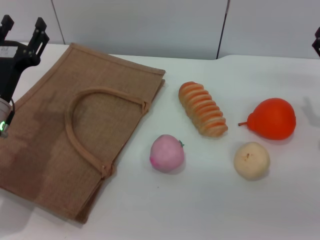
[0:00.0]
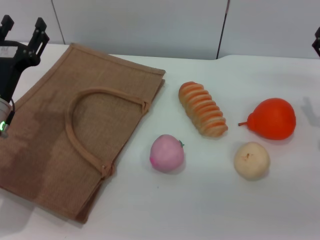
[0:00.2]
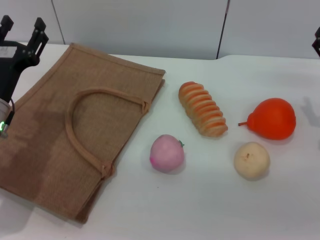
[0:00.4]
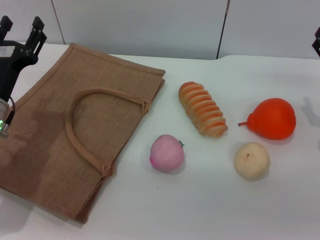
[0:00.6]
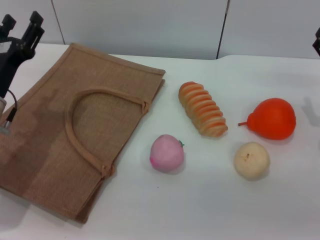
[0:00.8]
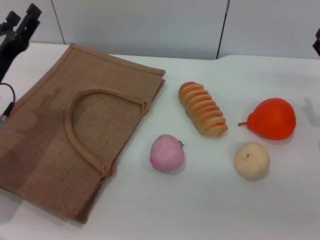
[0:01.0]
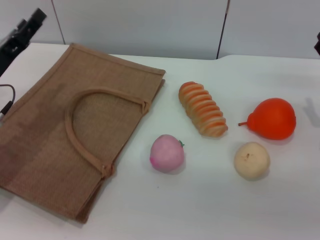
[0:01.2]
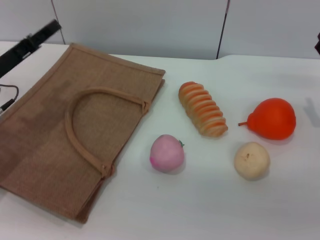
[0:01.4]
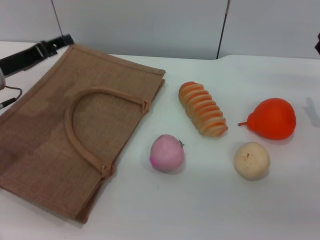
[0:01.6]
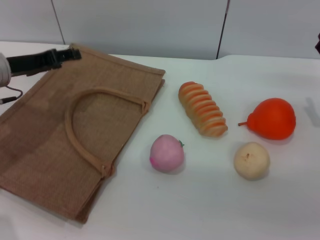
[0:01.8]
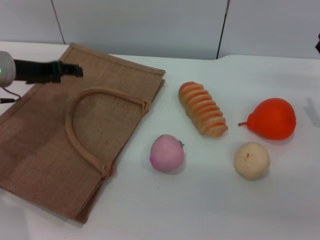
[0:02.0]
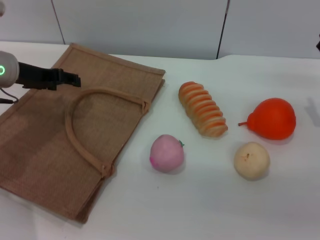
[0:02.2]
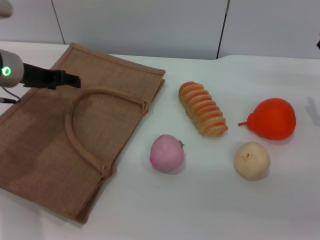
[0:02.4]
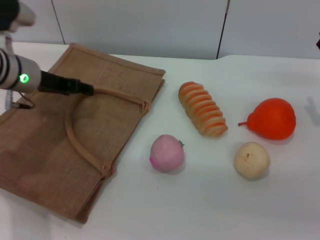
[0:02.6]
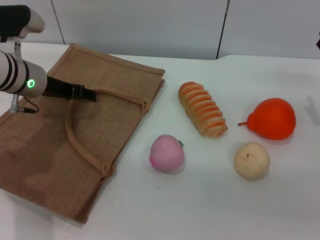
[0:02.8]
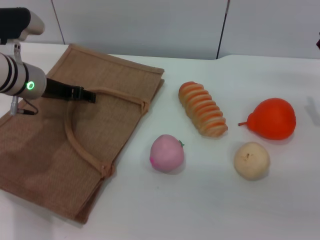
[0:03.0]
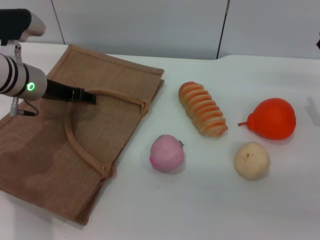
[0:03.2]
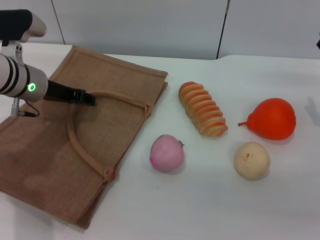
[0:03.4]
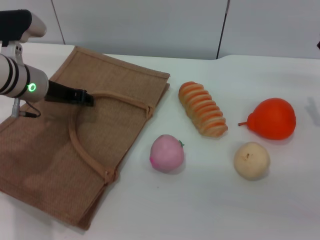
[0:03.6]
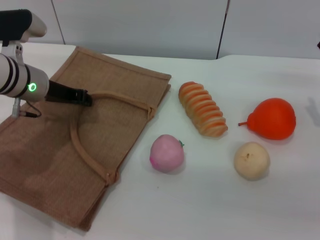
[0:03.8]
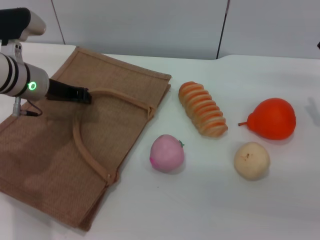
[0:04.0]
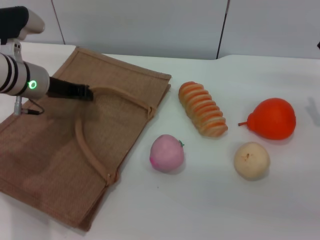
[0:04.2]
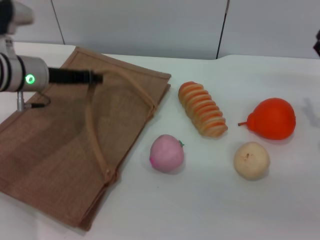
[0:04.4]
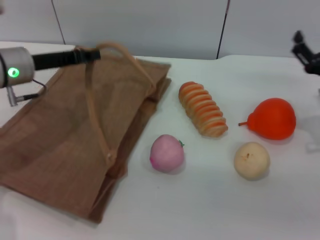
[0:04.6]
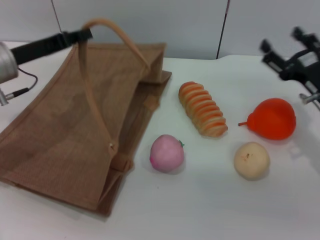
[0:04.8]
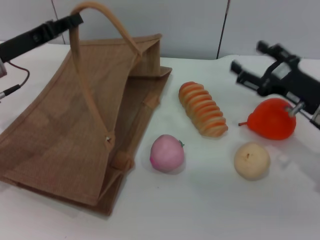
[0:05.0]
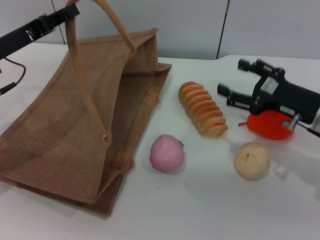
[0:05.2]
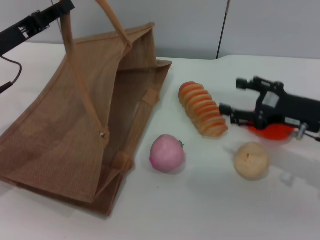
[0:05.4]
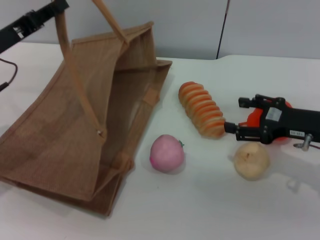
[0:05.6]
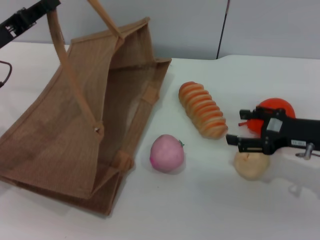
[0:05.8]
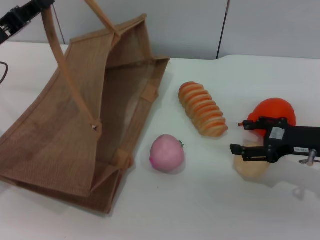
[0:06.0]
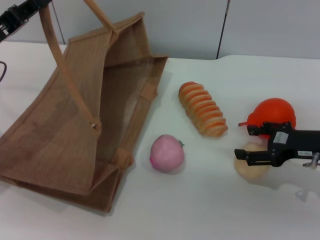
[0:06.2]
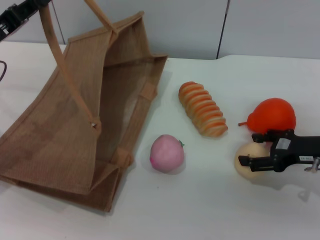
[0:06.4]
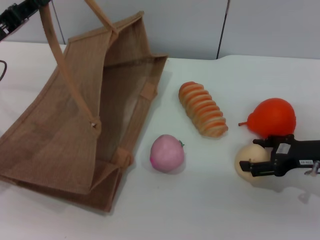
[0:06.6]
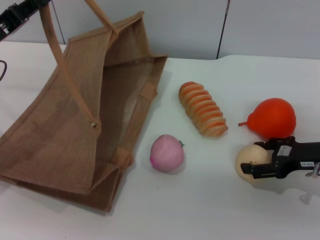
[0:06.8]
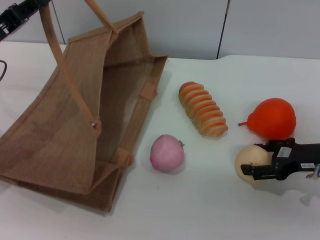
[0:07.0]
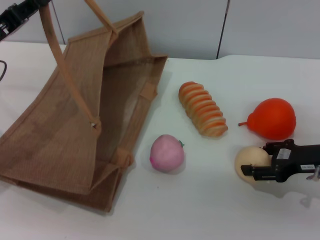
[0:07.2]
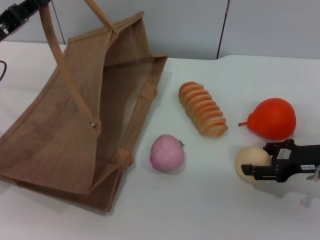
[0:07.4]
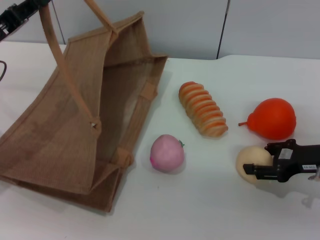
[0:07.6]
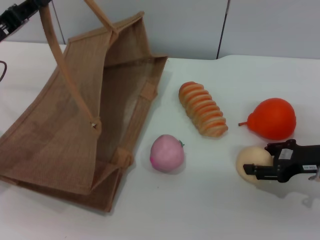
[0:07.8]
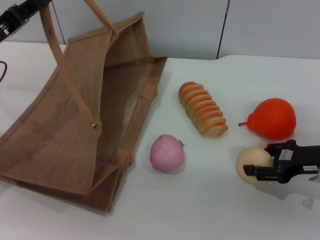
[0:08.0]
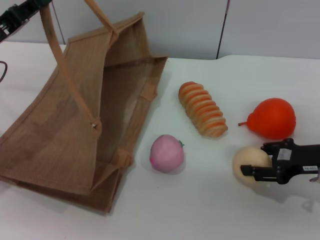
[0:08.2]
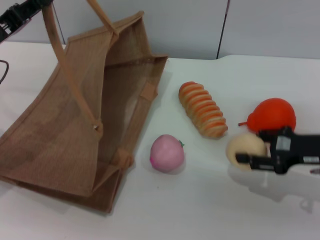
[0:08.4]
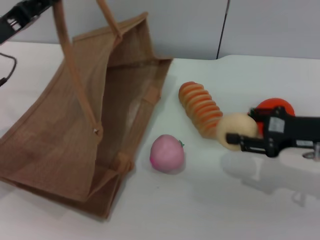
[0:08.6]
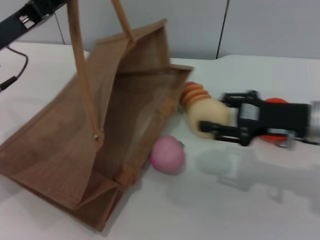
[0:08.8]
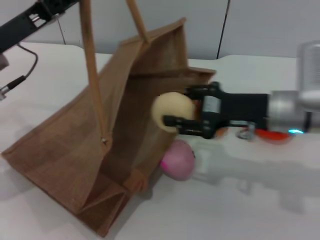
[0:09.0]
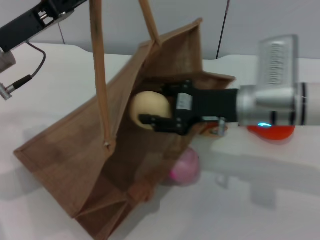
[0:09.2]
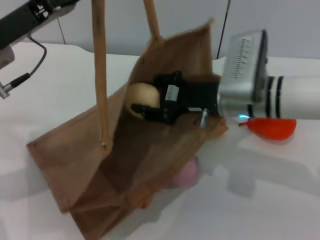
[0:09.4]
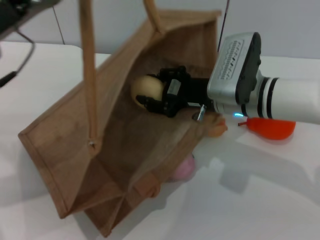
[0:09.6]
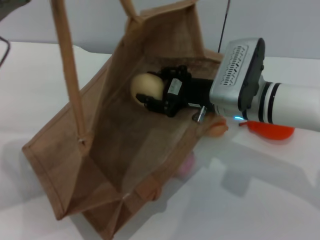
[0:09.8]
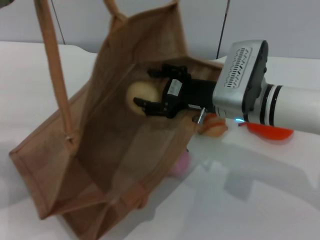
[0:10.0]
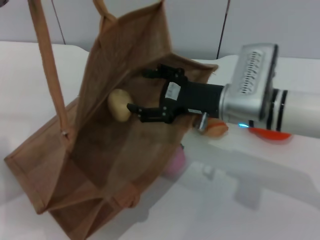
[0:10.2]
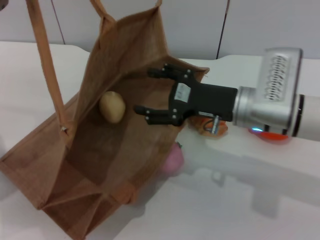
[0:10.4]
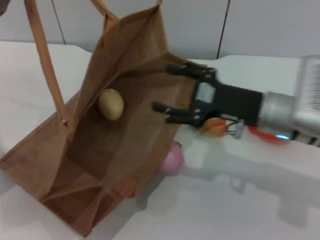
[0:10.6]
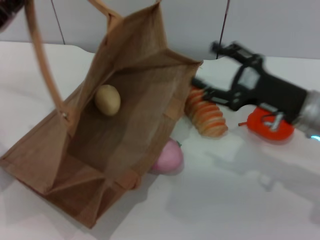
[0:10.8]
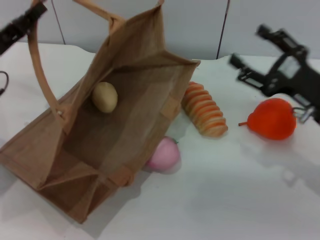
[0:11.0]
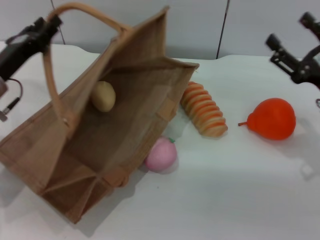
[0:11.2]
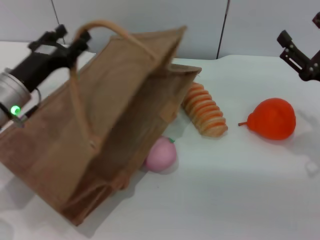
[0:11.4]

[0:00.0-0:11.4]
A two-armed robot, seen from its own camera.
Task of the whole recording: pick up the egg yolk pastry from the table and place it in the brown handbag.
Step, 0:00.0 to 0:04.4: Lift the woven bag with the left gripper to open it.
Step, 0:04.6 to 0:08.4: Pick up the egg yolk pastry with the right gripper.
Step, 0:08.6 to 0:10.2: Place the egg yolk pastry into the woven bag with the right gripper.
0:00.0 to 0:01.4: The left gripper moves roughly 5 cm.
0:01.4 to 0:02.8: The left gripper heads to the right and forward, covering some 10 cm.
0:02.8 to 0:04.2: The left gripper closes.
0:04.2 to 0:05.6: The left gripper goes some 10 cm to the left and backward.
0:07.2 to 0:08.6: The right gripper closes its fingers.
0:08.6 to 0:10.0: The right gripper heads to the left, covering some 15 cm.
0:10.0 to 0:11.4: The left gripper heads downward, covering approximately 10 cm, and opens. The right gripper travels to the right by about 15 cm, and opens its fingers.

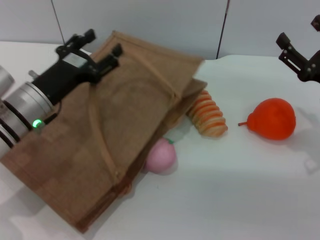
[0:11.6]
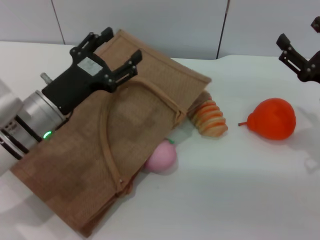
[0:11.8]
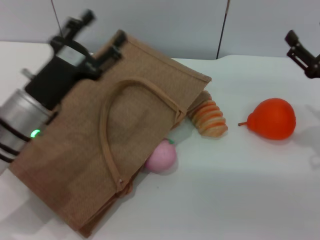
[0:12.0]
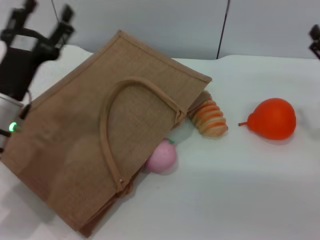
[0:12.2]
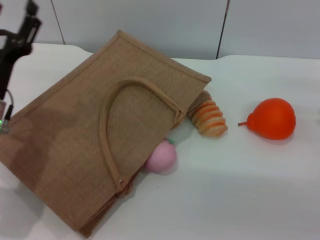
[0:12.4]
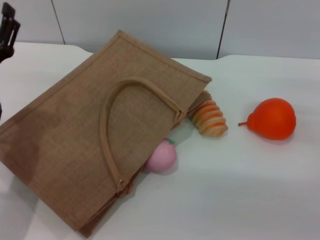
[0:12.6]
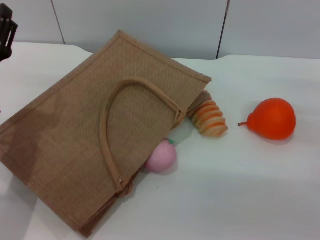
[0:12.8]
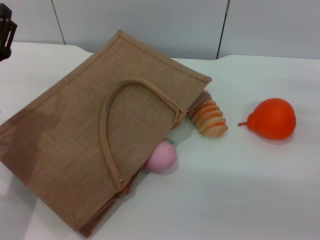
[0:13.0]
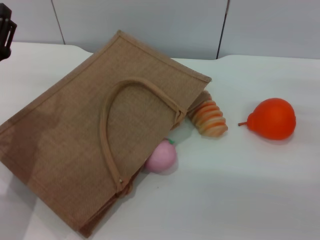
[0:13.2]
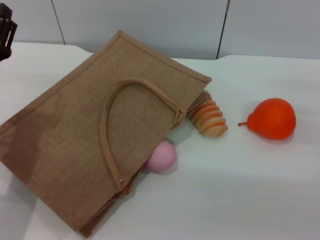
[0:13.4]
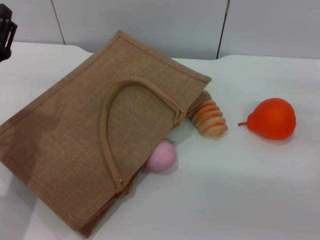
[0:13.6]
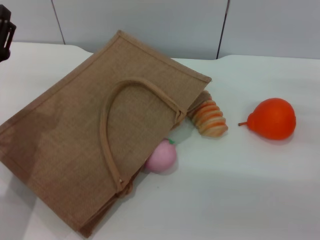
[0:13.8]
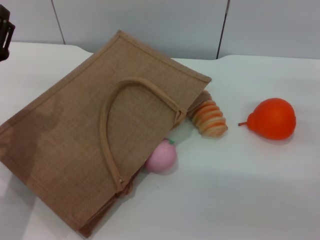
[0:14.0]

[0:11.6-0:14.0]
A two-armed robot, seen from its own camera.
Task of the whole recording: pick up the egg yolk pastry from the table and place it in the brown handbag.
0:11.6 to 0:12.8: The left gripper ends up roughly 5 cm from where it was.
0:12.8 to 0:14.0: The two grippers keep their place.
